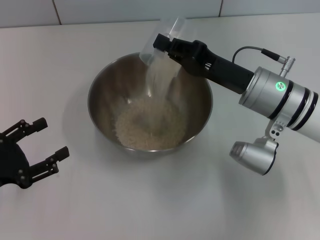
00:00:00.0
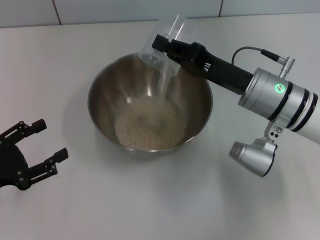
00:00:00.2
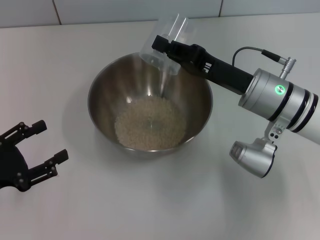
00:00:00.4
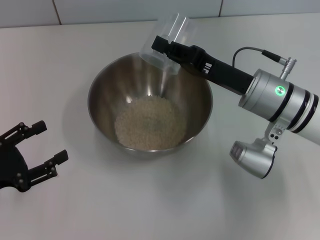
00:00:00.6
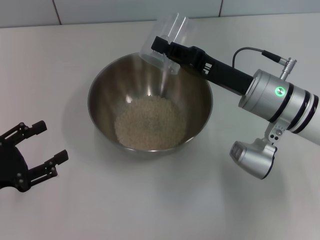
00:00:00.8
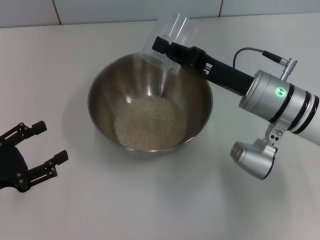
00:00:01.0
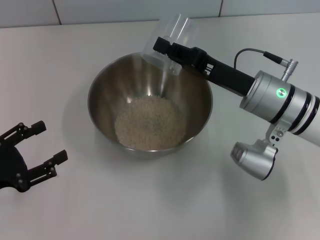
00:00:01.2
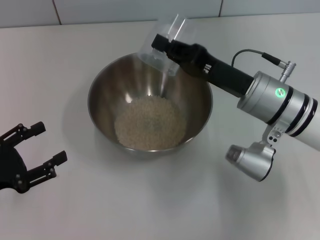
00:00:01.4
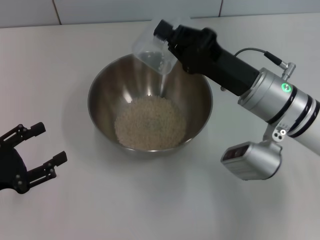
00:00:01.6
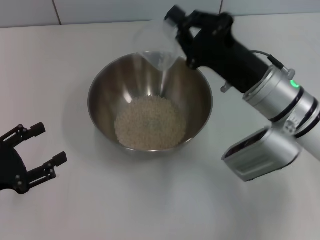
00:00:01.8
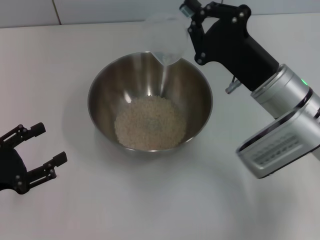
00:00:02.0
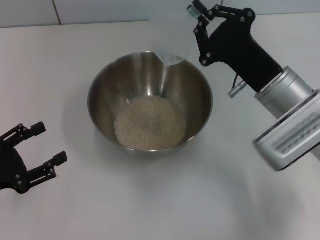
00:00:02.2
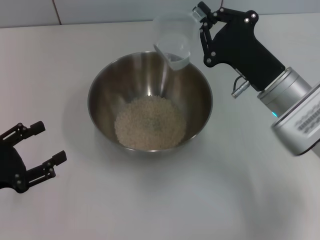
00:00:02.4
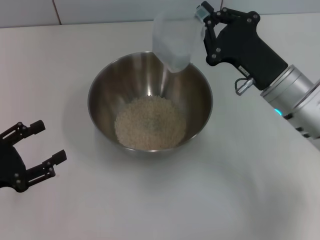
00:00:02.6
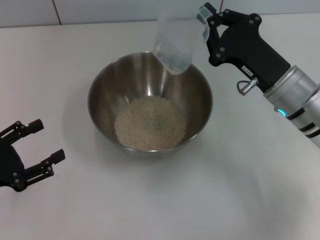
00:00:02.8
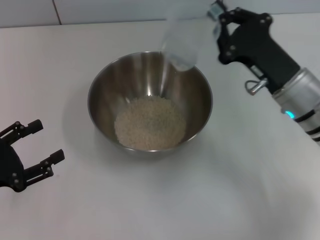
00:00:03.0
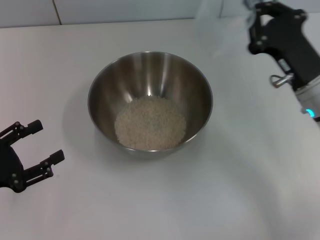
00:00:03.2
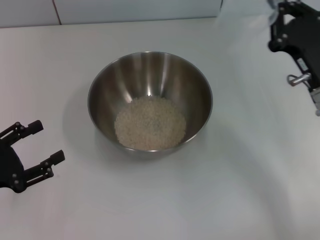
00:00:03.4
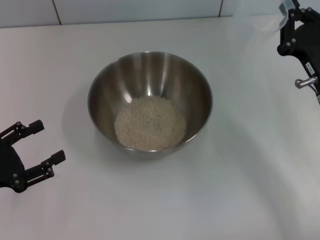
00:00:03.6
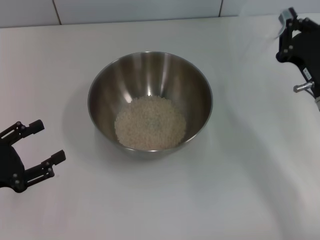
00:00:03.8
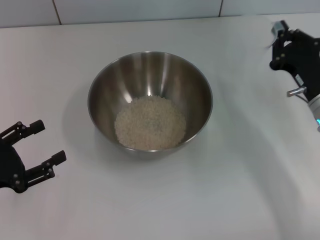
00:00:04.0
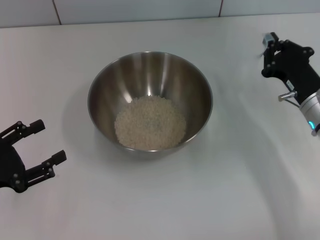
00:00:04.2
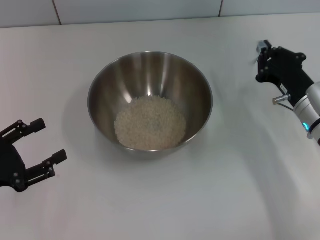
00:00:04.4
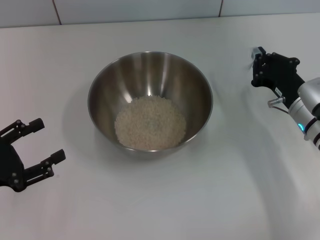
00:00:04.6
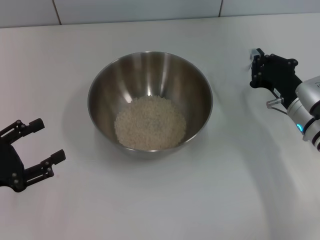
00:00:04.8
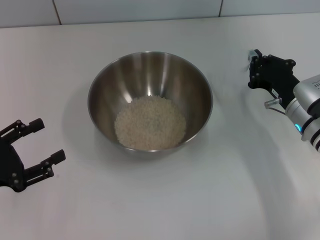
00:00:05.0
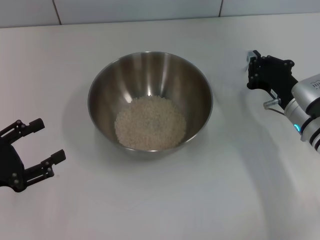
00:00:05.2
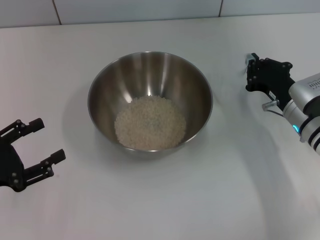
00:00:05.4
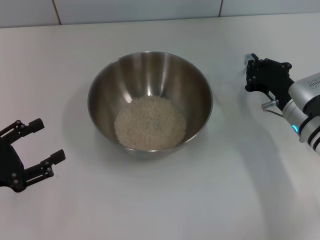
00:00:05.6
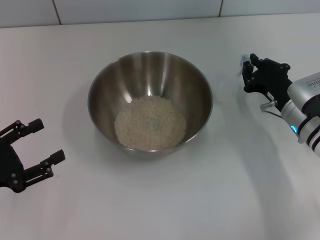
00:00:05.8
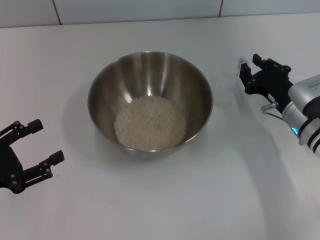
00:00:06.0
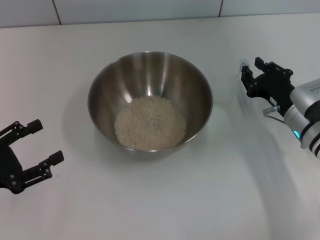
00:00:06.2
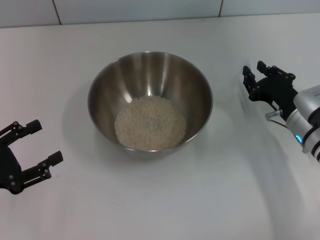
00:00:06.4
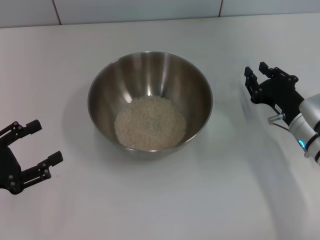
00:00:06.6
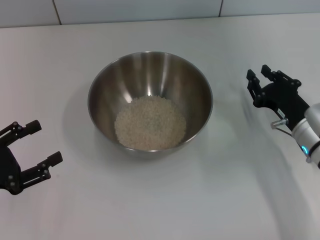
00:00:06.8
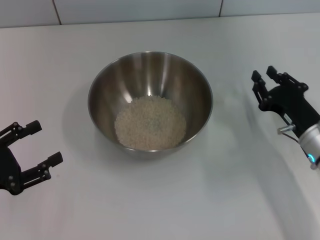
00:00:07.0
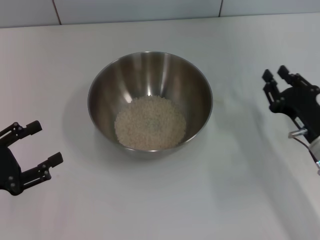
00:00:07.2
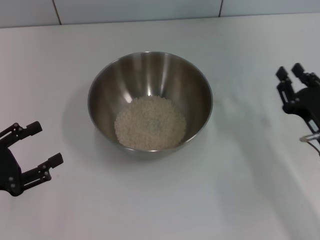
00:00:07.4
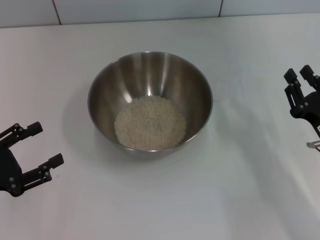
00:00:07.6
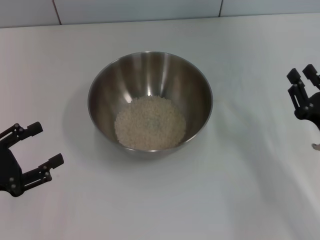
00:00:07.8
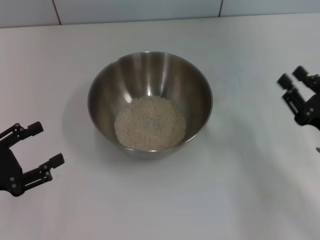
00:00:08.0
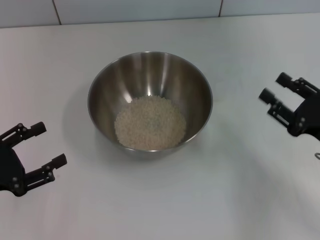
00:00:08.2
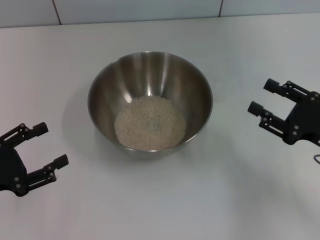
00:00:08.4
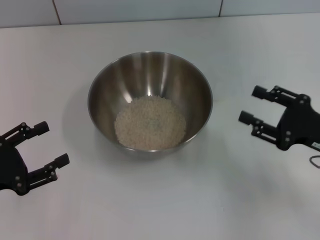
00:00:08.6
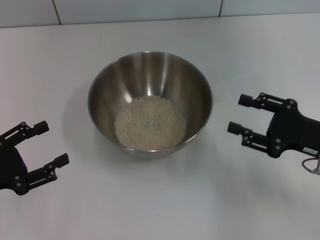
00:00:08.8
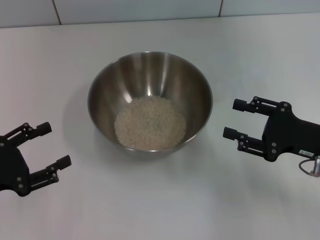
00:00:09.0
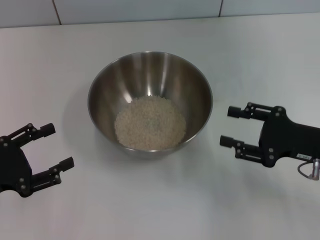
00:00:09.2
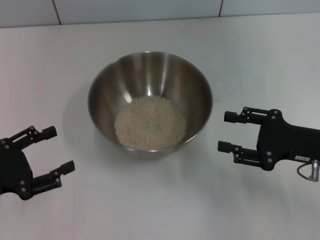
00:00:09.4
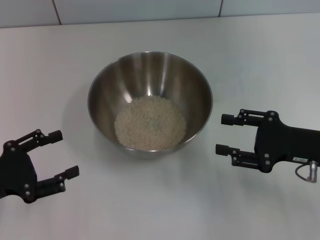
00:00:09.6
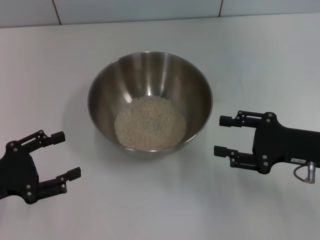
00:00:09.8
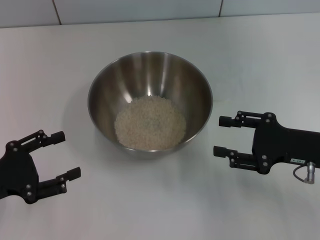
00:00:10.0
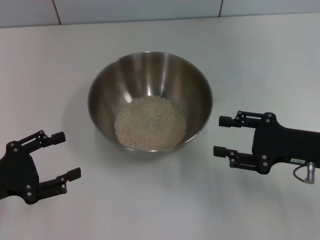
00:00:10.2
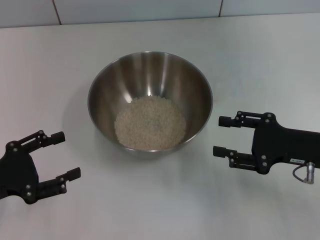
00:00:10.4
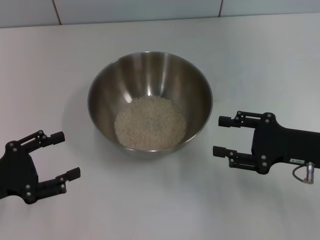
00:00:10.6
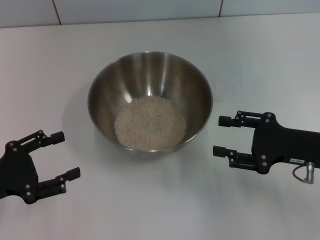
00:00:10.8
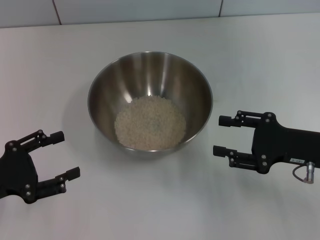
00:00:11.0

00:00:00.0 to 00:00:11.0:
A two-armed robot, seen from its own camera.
Task of the whole recording: Place the bowl in the middle of the table with one hand and pour the rice from the grain cup into it with the other hand.
Step, 00:00:00.0 to 00:00:03.6: Pour the rice from the cup into the bowl with the right gripper.
Step, 00:00:03.8 to 00:00:07.2: Place the cup on the table with the right gripper.
00:00:00.0 to 00:00:01.6: The grippers make only small movements.
00:00:01.6 to 00:00:03.2: The right gripper is displaced to the right by about 5 cm.
00:00:03.2 to 00:00:04.8: The right gripper travels downward by some 5 cm.
00:00:04.8 to 00:00:06.2: The two grippers keep their place.
00:00:06.2 to 00:00:07.8: The right gripper goes roughly 10 cm backward.
00:00:07.8 to 00:00:09.4: The right gripper changes place by about 5 cm, and opens its fingers.
00:00:09.4 to 00:00:11.0: Both grippers stay about where they are.
